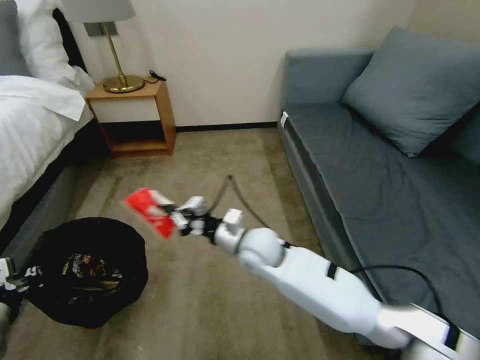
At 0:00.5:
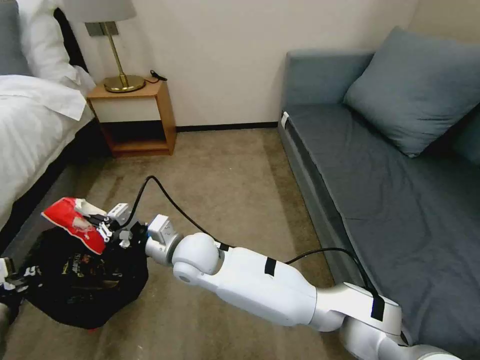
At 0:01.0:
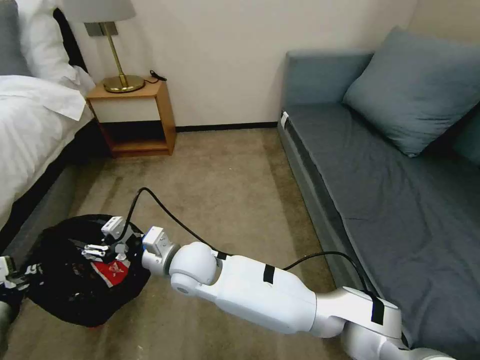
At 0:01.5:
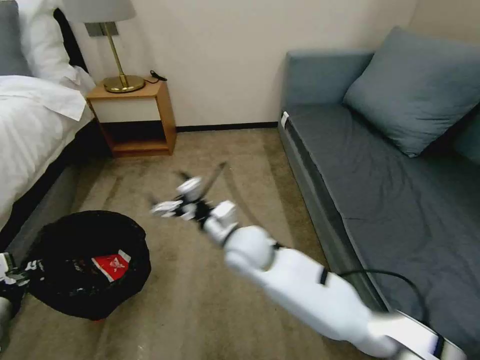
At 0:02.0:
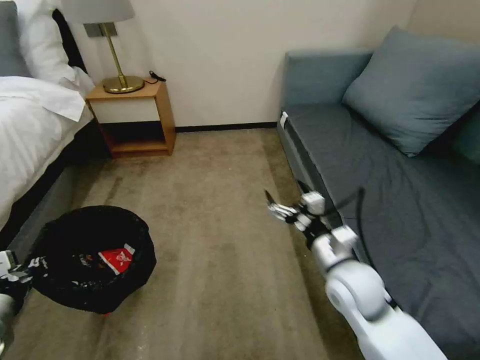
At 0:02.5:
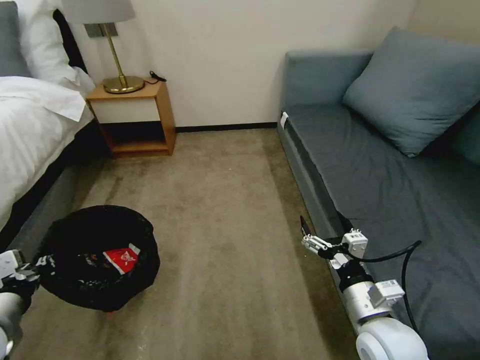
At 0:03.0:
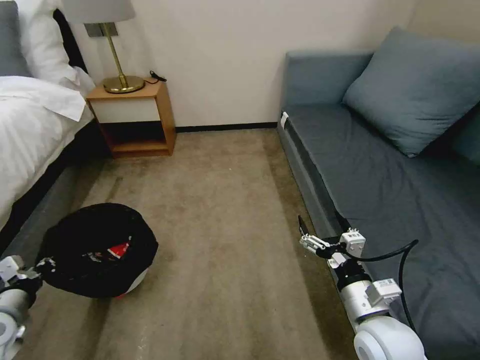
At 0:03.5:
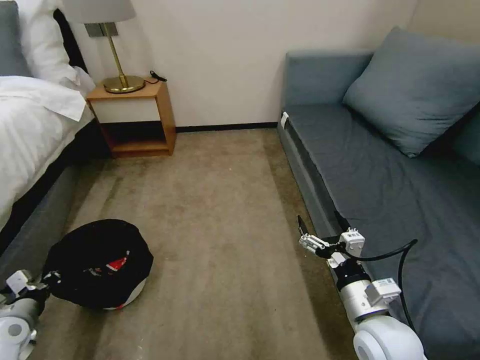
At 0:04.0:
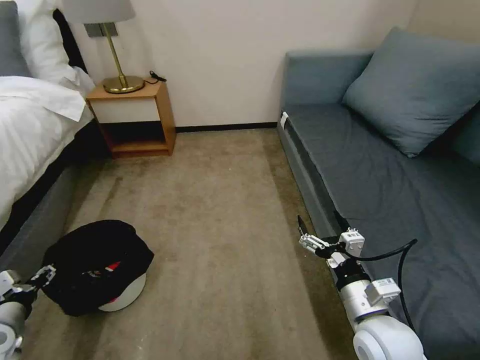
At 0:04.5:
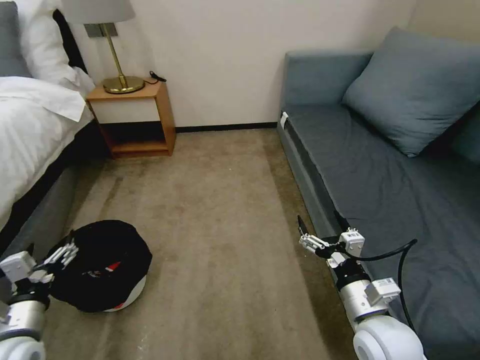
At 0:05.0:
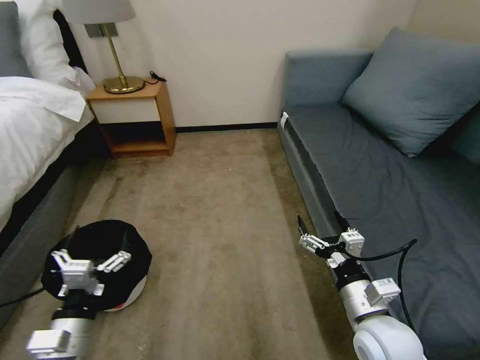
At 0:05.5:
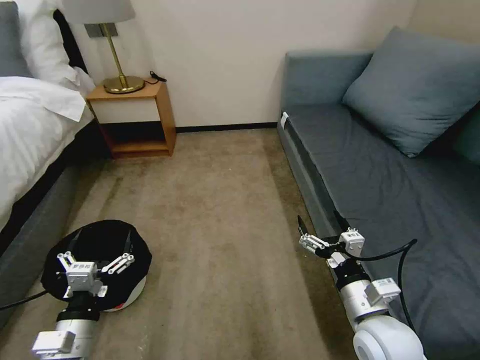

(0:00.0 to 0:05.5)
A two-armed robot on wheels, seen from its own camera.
Task of the whole recording: Pick up the trash bin, then pick up the garbage on the floor and place it into the trash bin.
0:00.0 - 0:02.0: The right gripper is displaced to the right and backward by approximately 20 cm, and opens.
0:02.0 - 0:03.5: The right gripper moves backward, approximately 10 cm; the left gripper travels downward and to the left by approximately 15 cm.
0:03.5 - 0:05.5: The left gripper travels to the right by approximately 20 cm, and opens its fingers.

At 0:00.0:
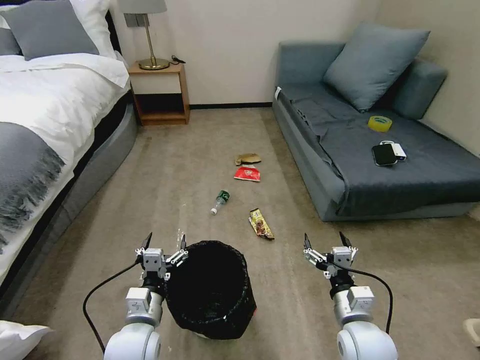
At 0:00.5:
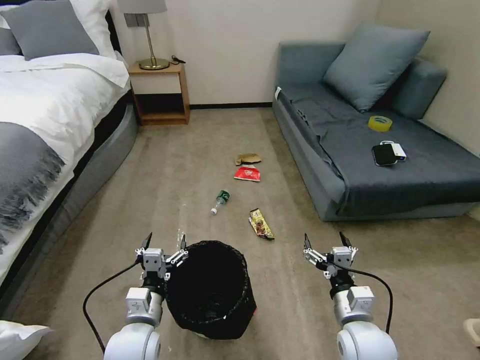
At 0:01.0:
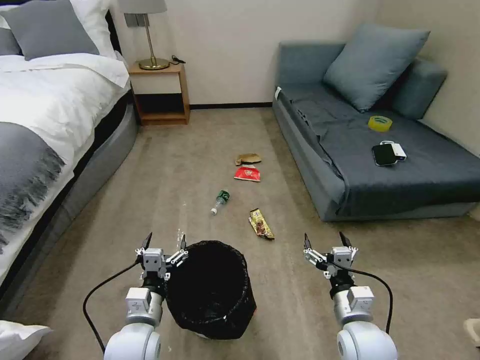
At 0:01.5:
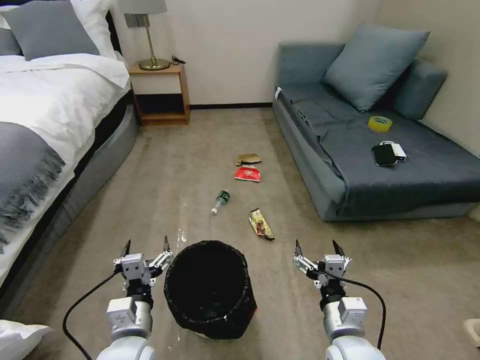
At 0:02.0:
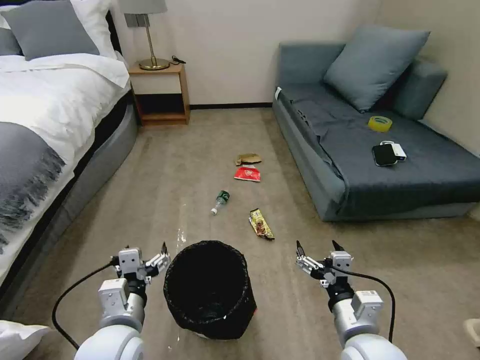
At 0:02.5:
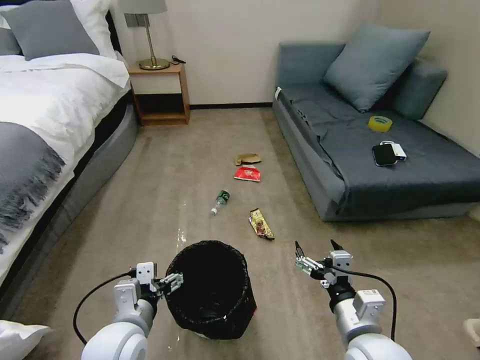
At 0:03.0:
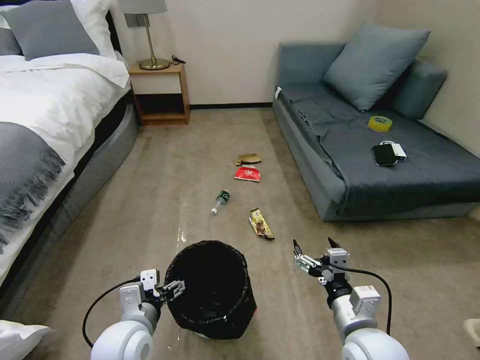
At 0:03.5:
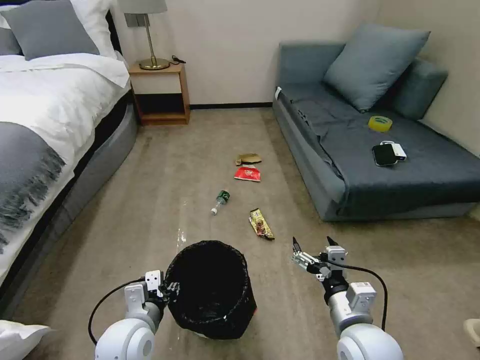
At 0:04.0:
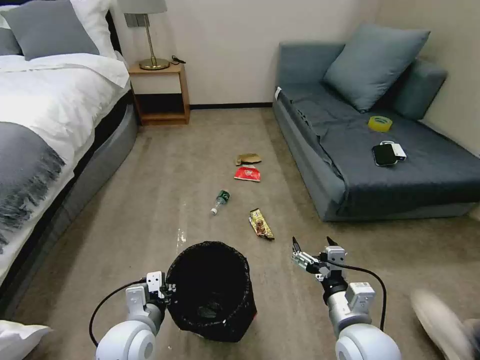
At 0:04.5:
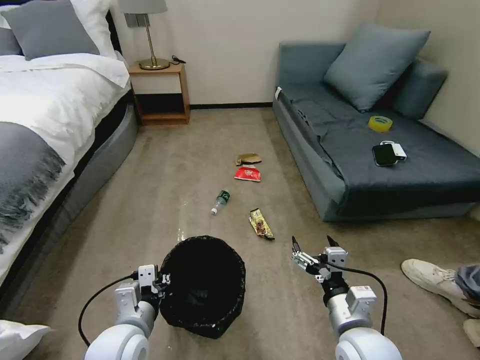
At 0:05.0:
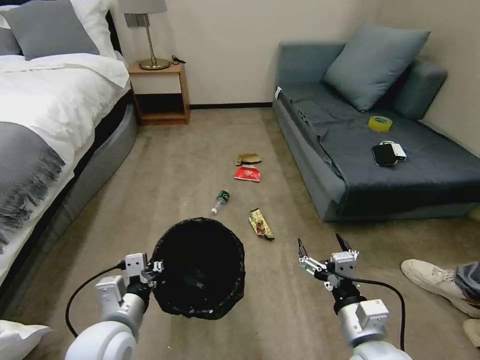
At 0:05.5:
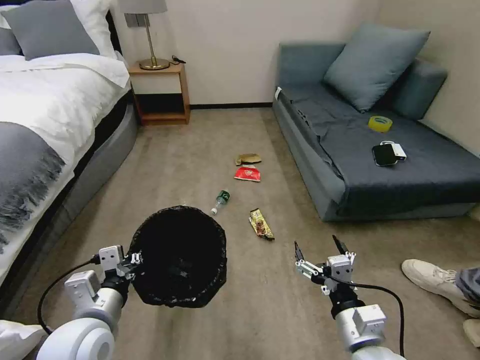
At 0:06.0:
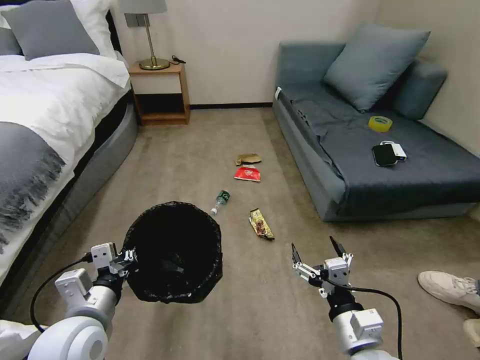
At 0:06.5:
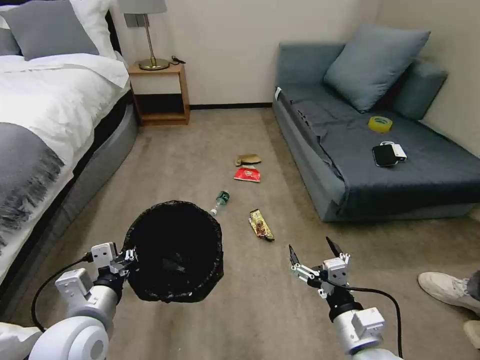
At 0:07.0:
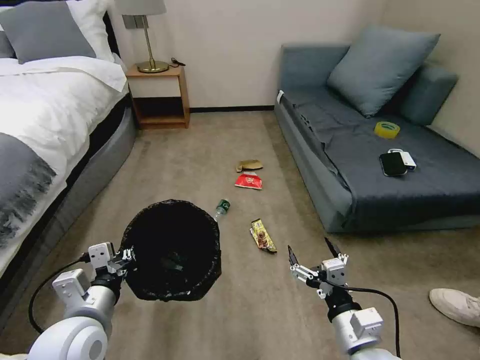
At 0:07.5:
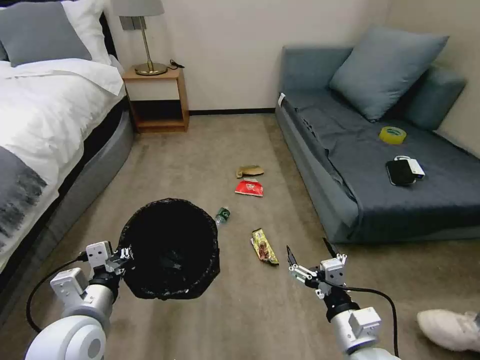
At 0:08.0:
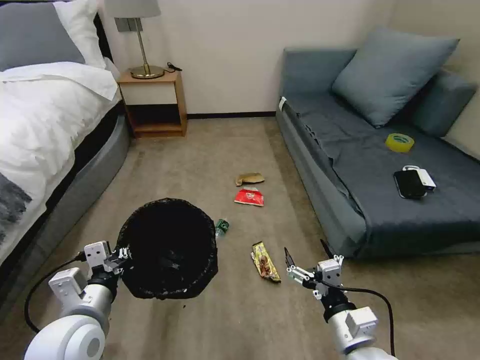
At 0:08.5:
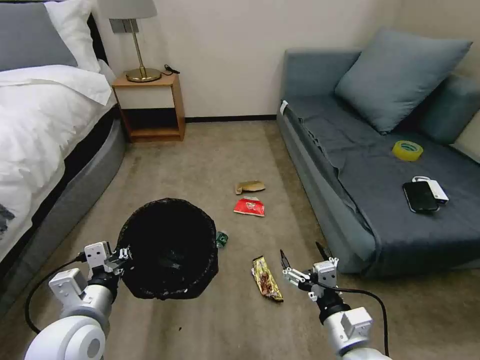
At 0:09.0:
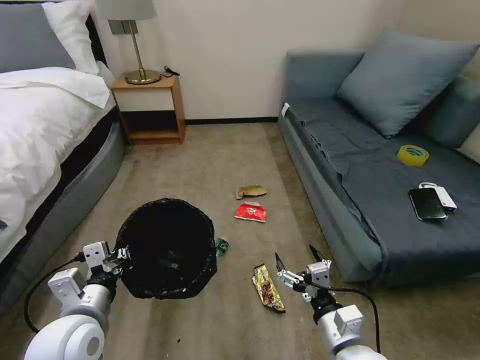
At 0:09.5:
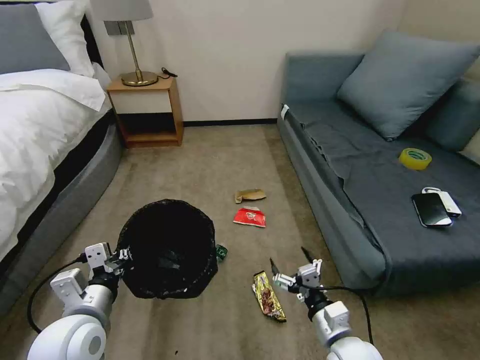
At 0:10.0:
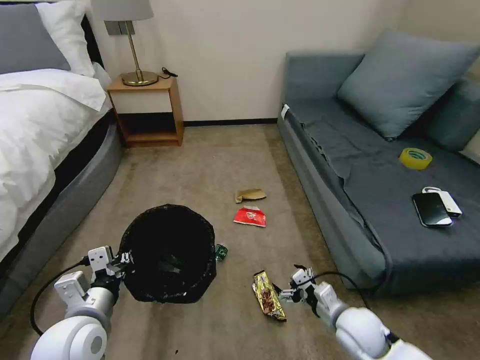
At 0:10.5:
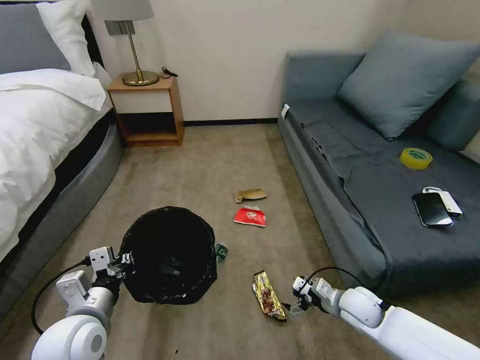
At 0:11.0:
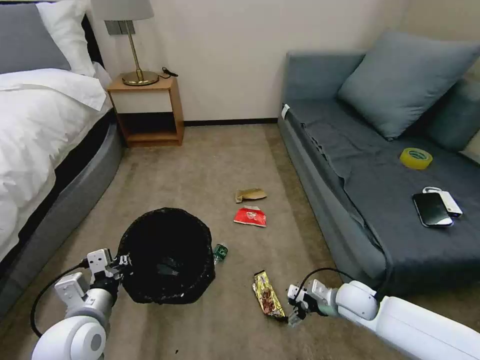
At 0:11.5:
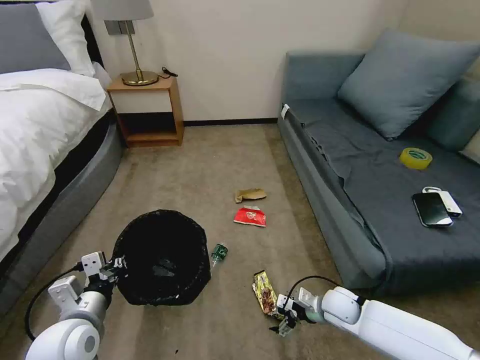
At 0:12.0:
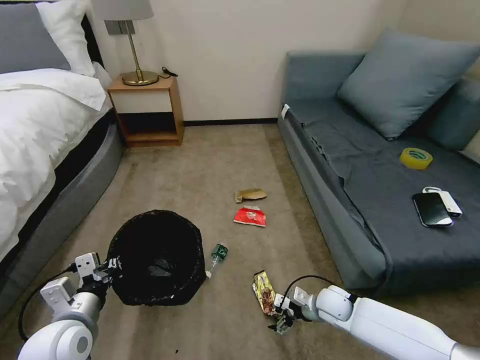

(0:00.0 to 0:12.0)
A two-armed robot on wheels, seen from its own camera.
Task of the whole recording: Pick up the trash bin, then pick up the garbage on the floor and place it into the trash bin.
0:02.0 - 0:04.0: The left gripper is displaced downward by some 5 cm, and closes up.
0:04.0 - 0:06.0: The left gripper heads upward and to the left, covering roughly 10 cm.
0:08.0 - 0:10.0: The right gripper heads downward and forward, covering approximately 10 cm.
0:10.0 - 0:12.0: The right gripper shifts roughly 10 cm forward and downward.

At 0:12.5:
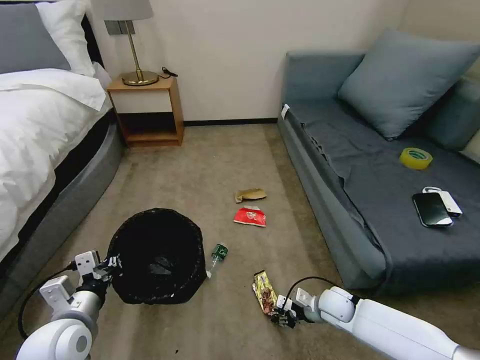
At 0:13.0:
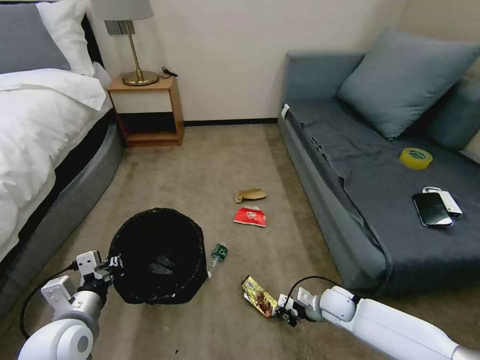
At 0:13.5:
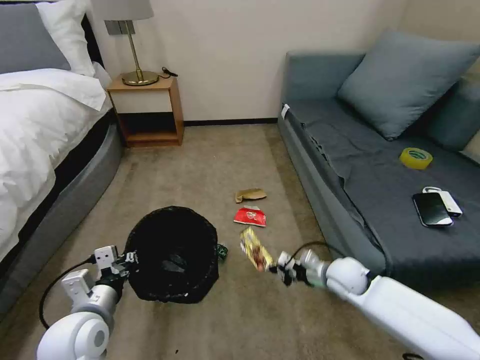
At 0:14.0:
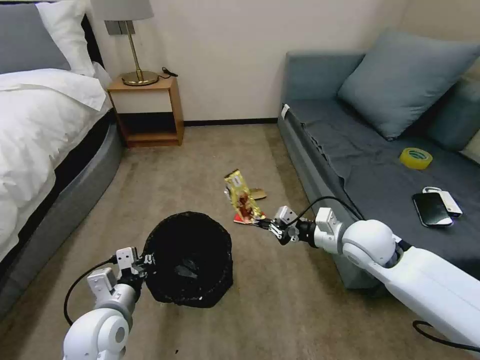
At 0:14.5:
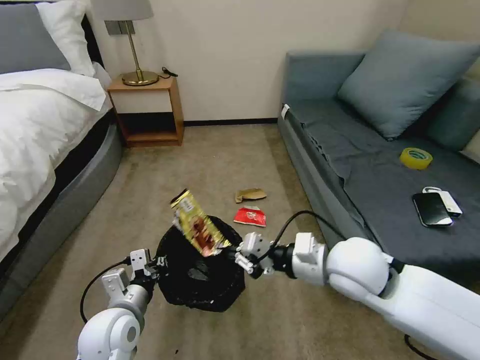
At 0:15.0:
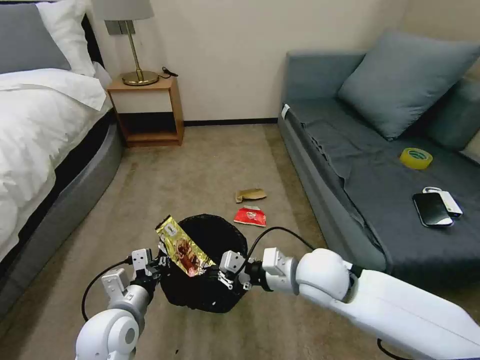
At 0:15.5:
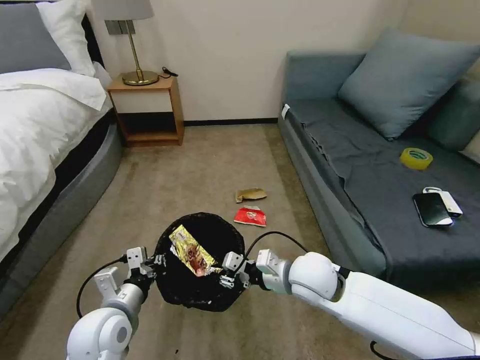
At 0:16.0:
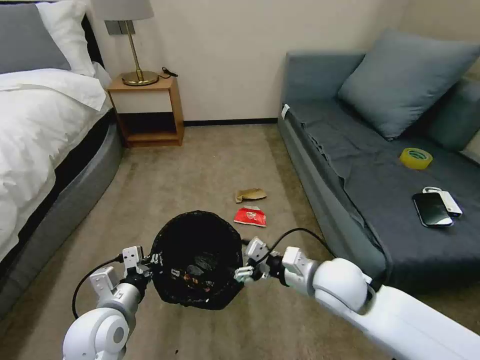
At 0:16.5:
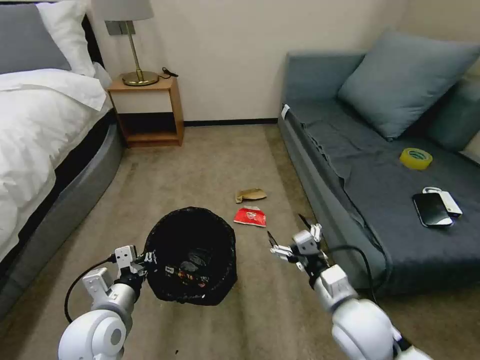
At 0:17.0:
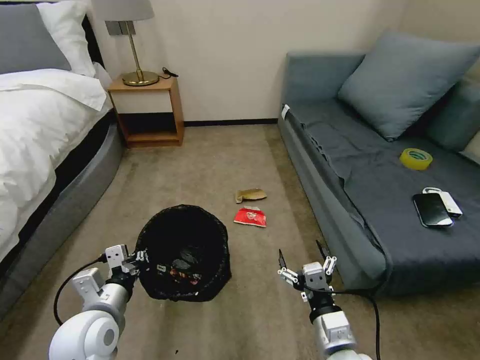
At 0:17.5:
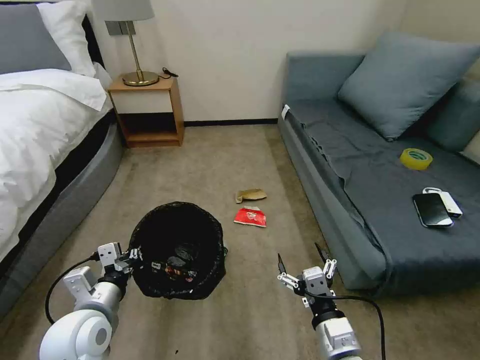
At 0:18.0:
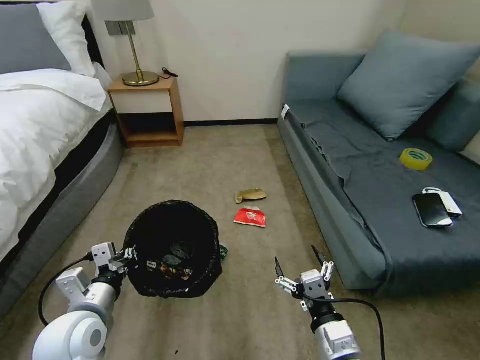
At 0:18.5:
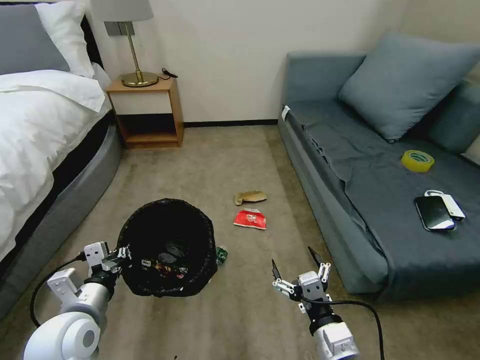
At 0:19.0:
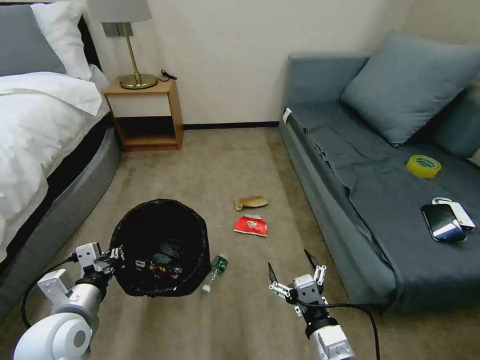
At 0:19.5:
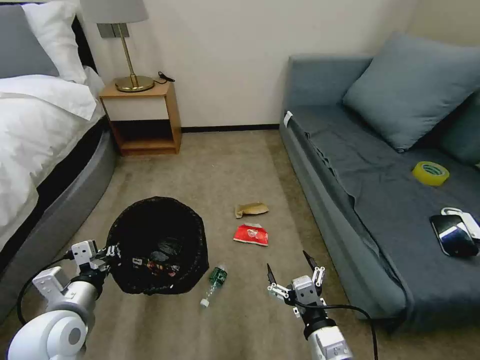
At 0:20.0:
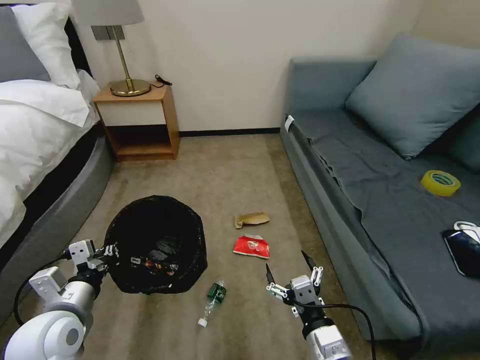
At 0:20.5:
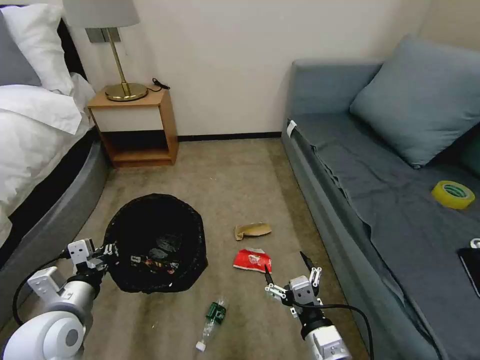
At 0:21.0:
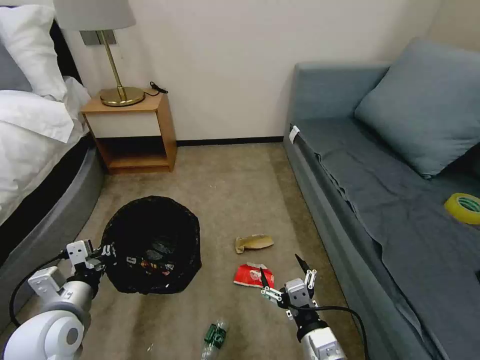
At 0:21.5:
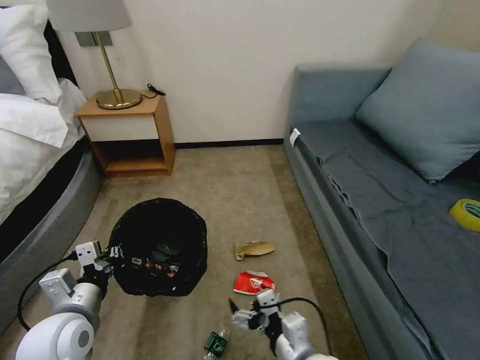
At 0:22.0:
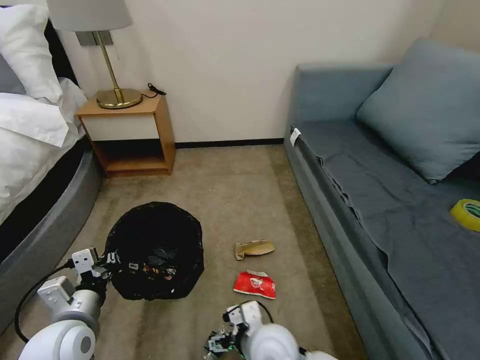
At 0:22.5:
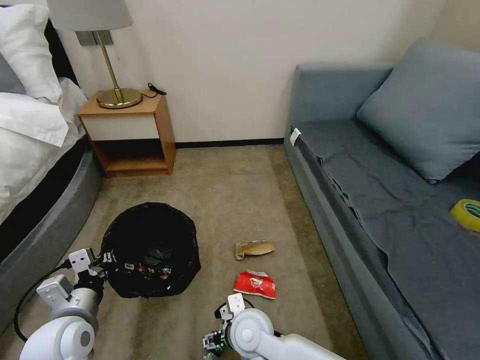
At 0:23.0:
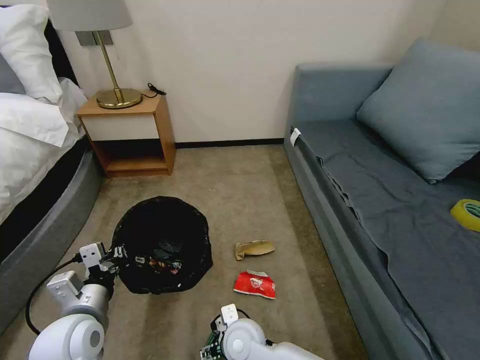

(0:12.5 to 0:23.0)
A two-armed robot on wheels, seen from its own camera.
Task of the whole recording: Pick up the trash bin, then pick up the garbage on the floor and place it into the trash bin.
0:12.5 - 0:14.5: The left gripper heads to the right, covering about 5 cm. Meanwhile the right gripper heads upward, covering about 30 cm, and closes.
0:14.5 - 0:16.5: The right gripper shifts approximately 10 cm downward and backward, and opens up.
0:16.5 - 0:19.0: The left gripper goes about 5 cm to the left. The right gripper is displaced backward by roughly 10 cm.
0:21.0 - 0:23.0: The right gripper shifts about 20 cm to the left, forward and downward.
